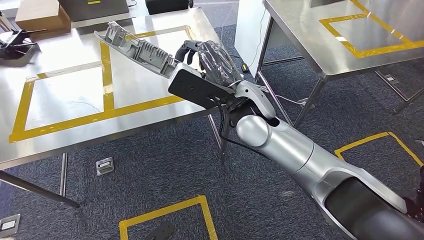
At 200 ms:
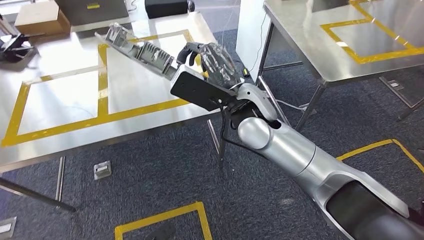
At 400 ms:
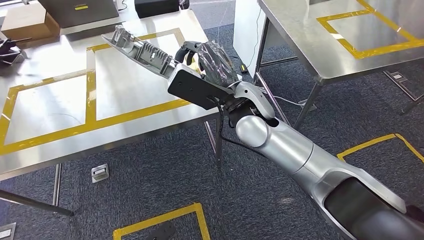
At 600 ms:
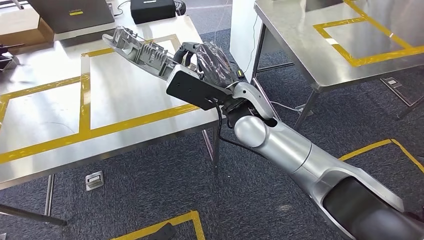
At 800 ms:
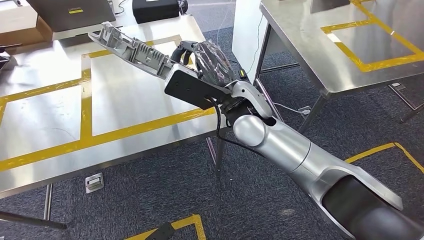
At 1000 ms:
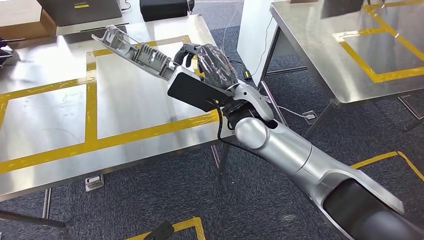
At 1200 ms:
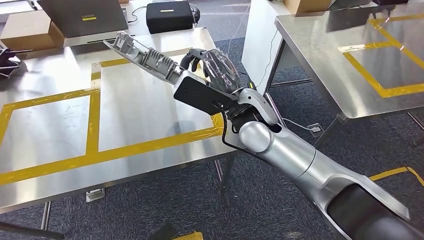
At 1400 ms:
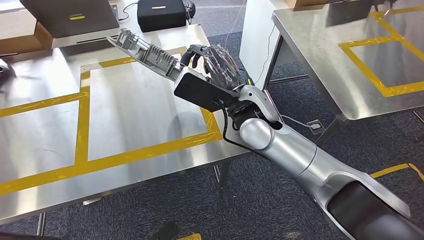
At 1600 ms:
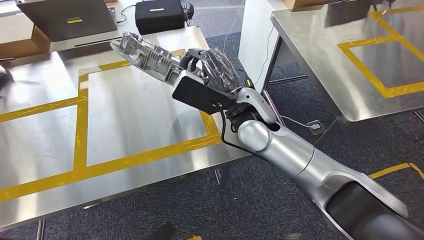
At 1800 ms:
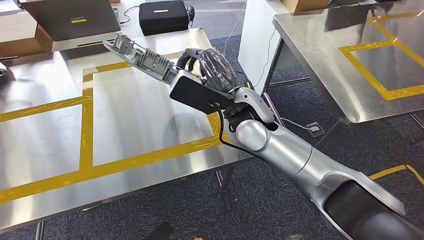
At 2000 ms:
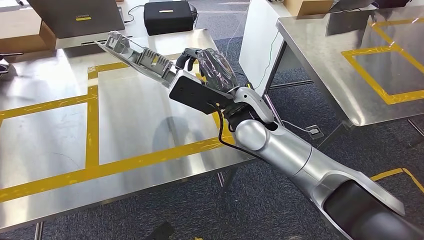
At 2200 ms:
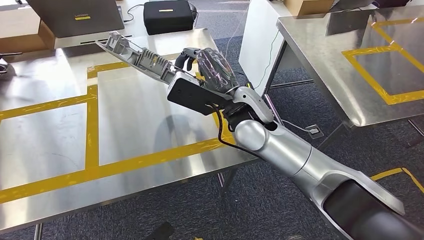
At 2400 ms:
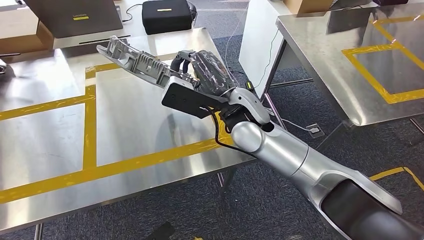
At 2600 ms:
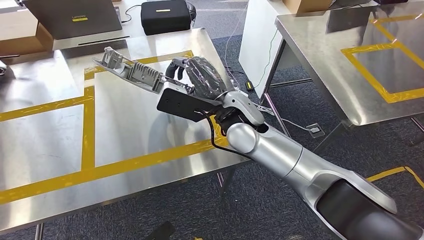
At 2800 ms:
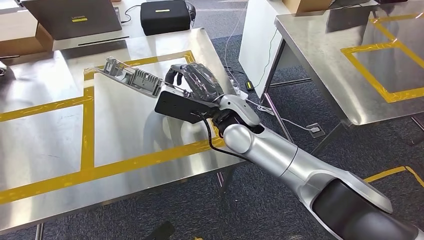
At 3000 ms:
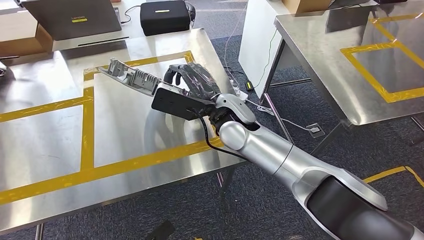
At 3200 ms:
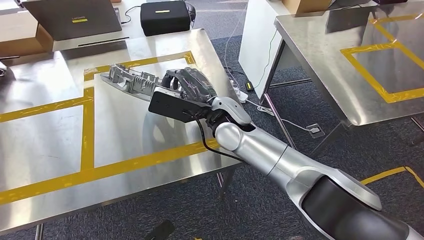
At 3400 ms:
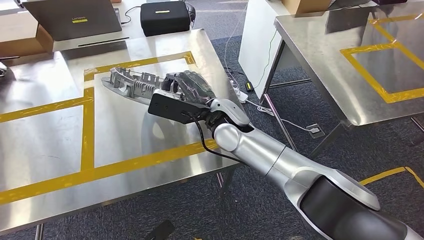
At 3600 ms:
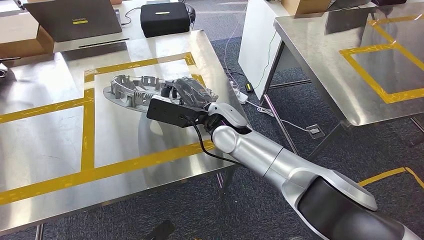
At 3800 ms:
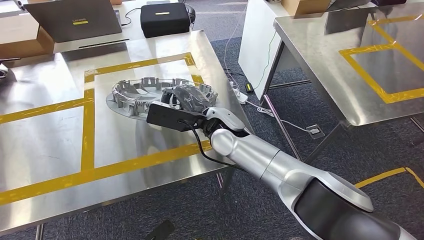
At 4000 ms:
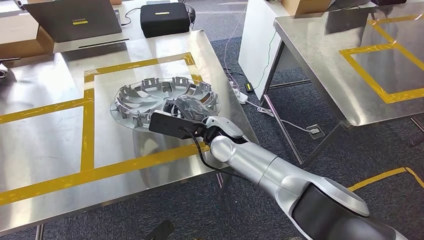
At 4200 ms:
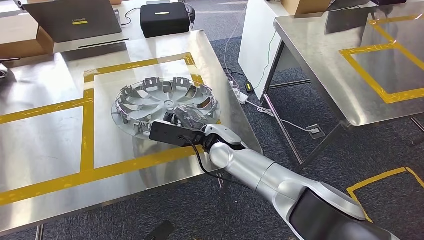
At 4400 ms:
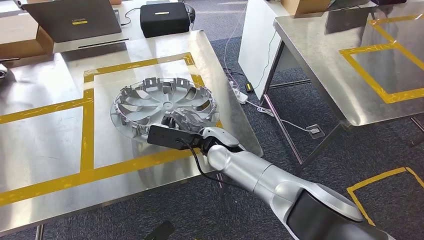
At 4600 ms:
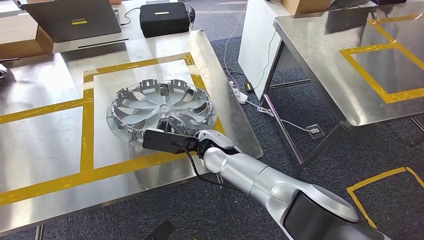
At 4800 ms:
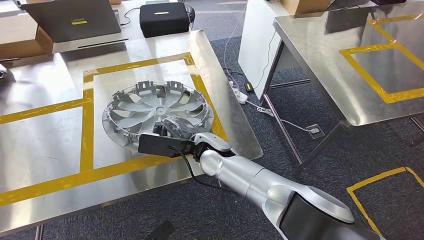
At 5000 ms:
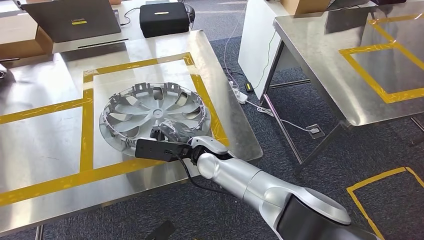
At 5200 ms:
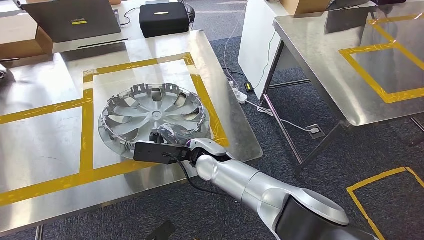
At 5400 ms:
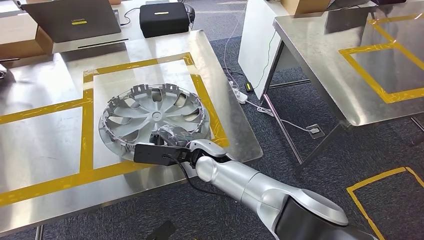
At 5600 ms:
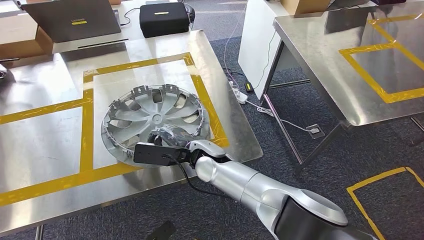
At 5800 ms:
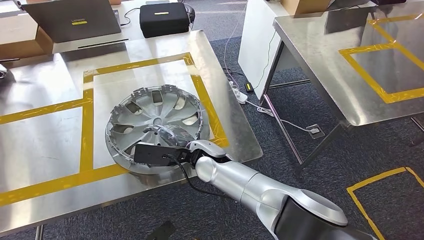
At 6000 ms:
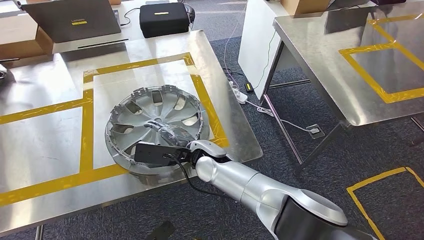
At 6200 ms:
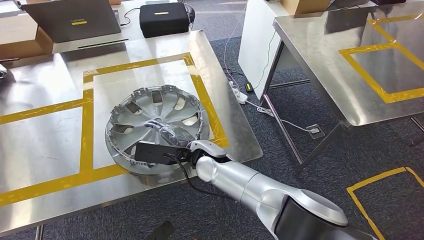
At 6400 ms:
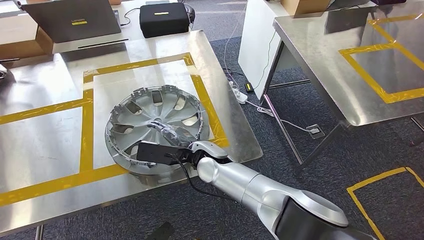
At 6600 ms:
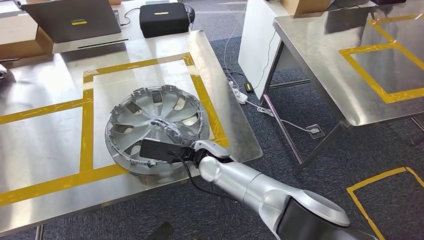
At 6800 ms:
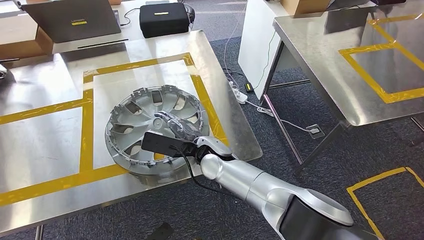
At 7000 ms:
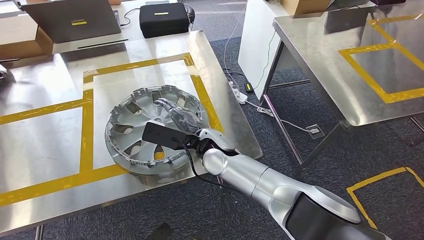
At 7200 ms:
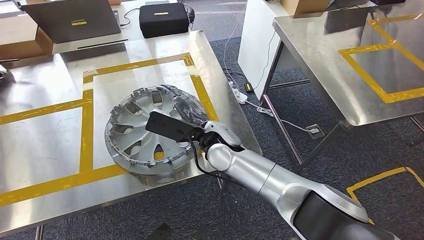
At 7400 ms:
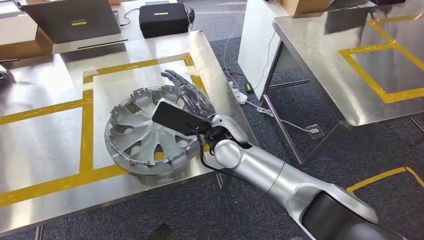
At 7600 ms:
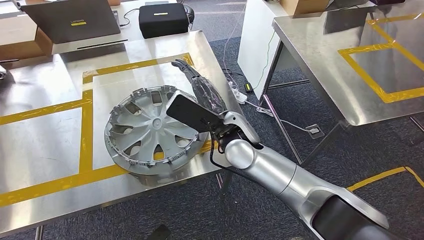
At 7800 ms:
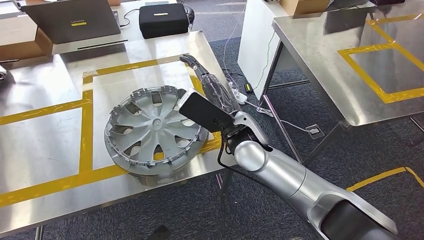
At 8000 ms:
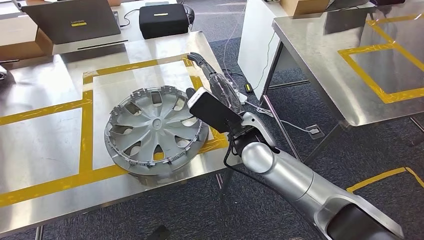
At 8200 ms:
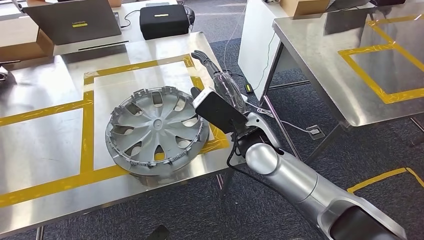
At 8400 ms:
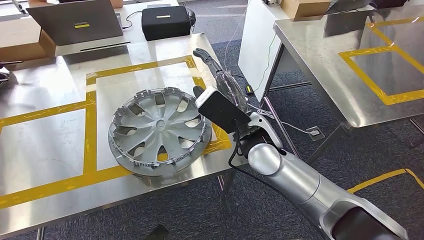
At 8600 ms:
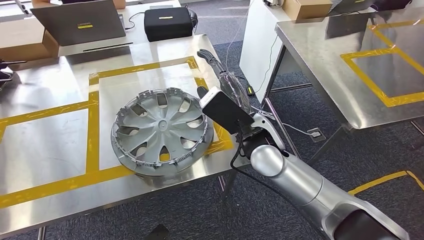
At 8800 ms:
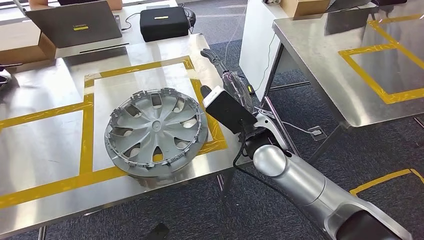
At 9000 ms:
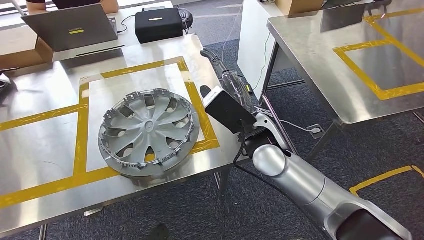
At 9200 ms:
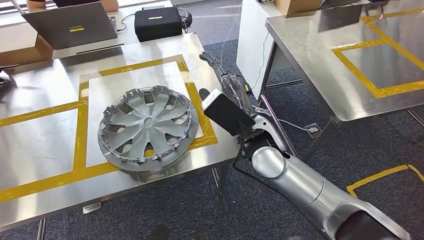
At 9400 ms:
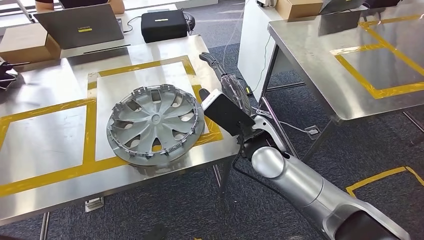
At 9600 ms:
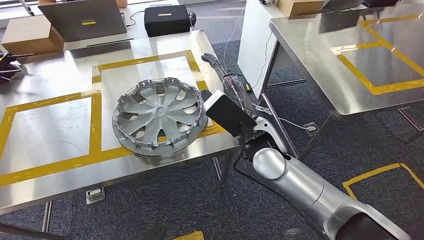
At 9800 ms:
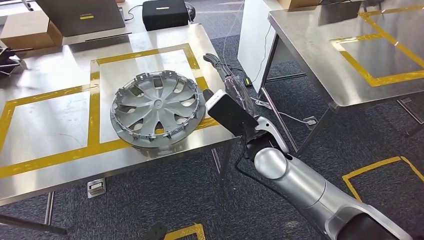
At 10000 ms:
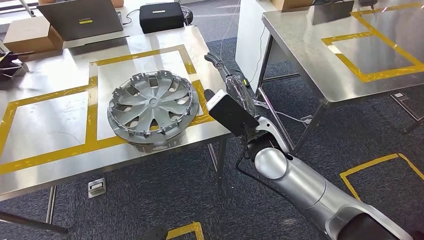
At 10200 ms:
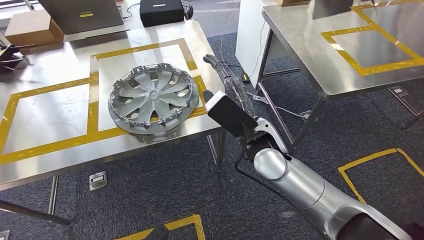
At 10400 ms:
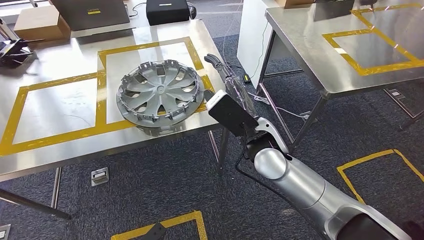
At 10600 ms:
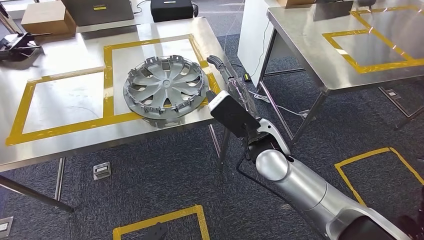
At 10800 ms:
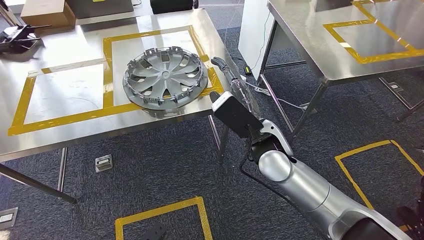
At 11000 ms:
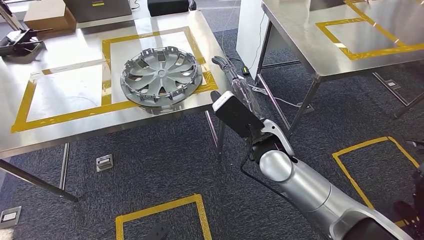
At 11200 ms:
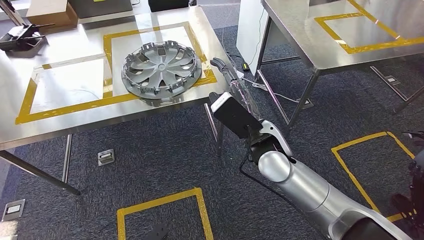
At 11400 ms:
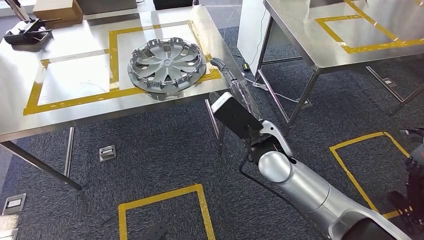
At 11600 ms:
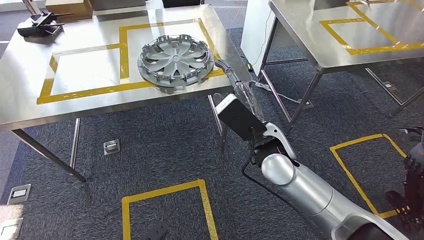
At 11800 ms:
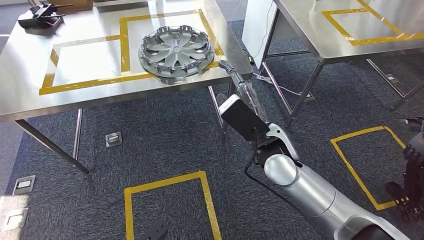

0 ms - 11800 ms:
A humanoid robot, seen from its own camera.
Step, 0 ms - 10400 ms: Insert the large material into the corresponding slot on the workbench.
Step, 10800 ms - 11800 ms: Return to the initial position at the shelf.
4400 ms - 6000 ms: The hands make only small movements.
6000 ms - 7400 ms: The right hand is displaced upward by some 5 cm.
